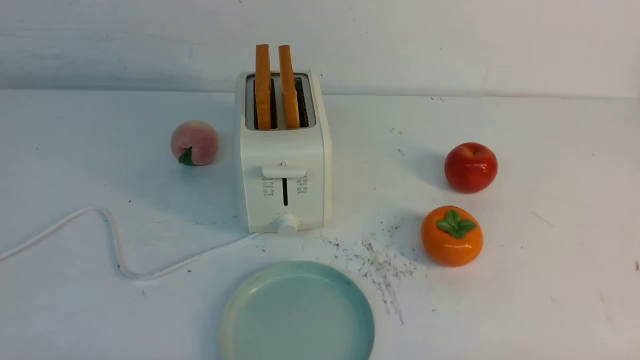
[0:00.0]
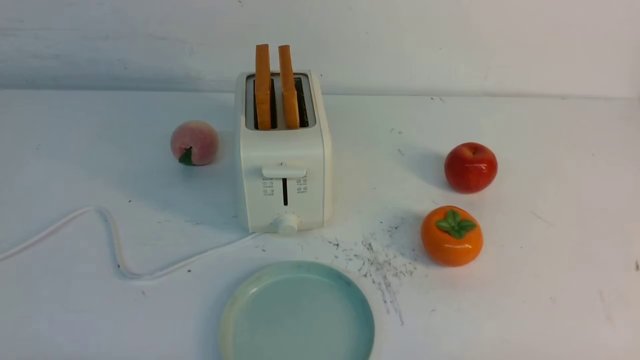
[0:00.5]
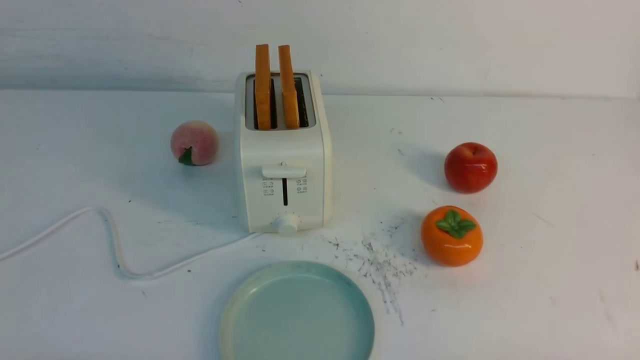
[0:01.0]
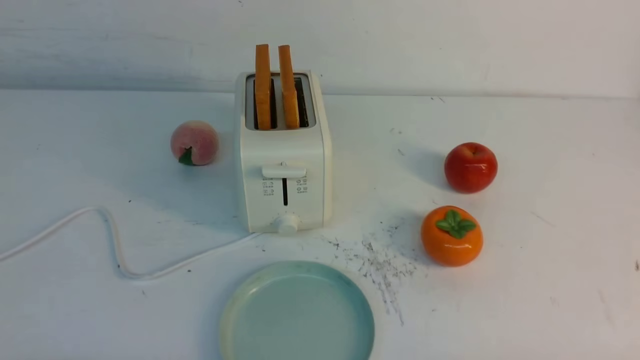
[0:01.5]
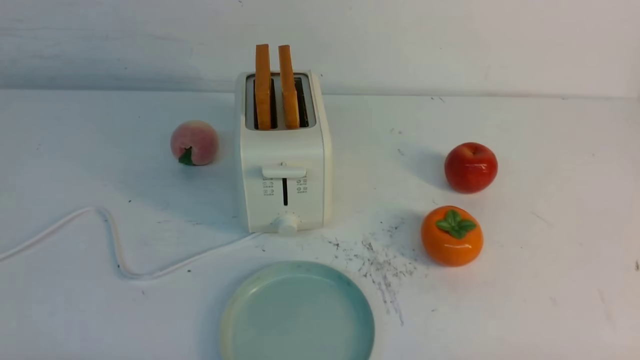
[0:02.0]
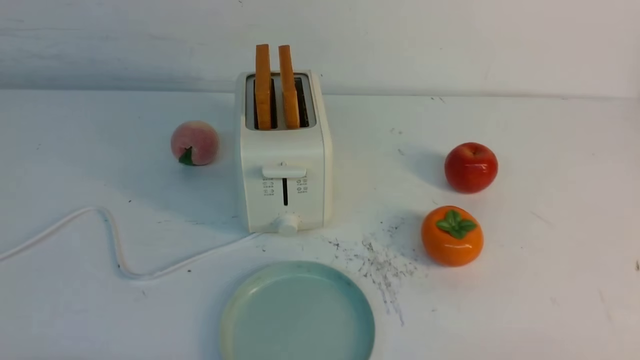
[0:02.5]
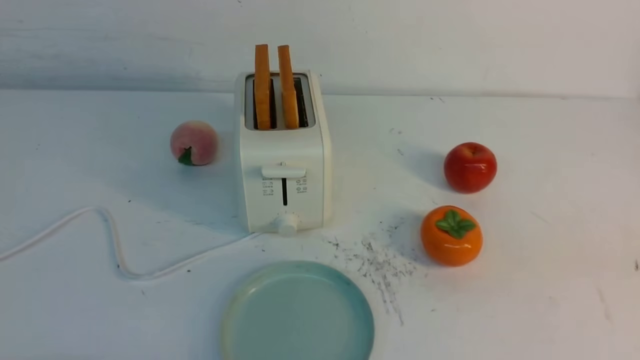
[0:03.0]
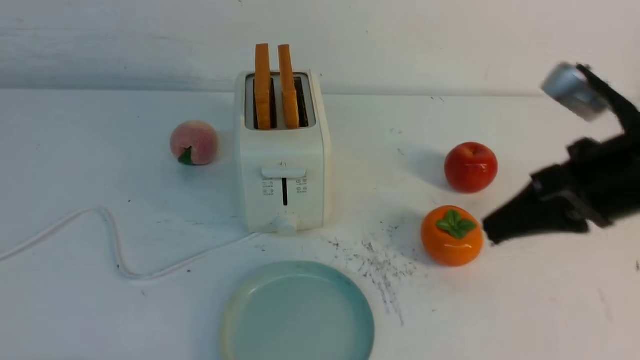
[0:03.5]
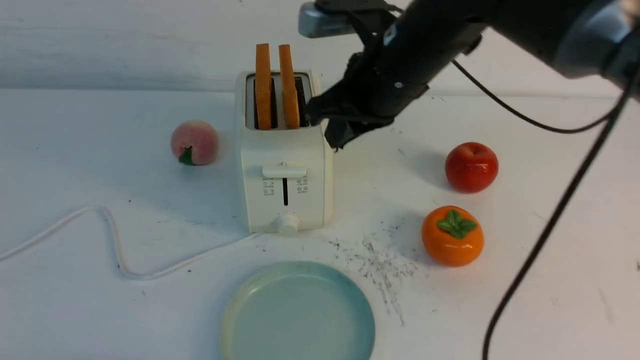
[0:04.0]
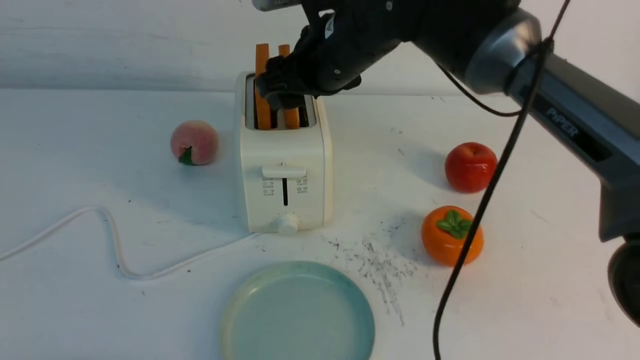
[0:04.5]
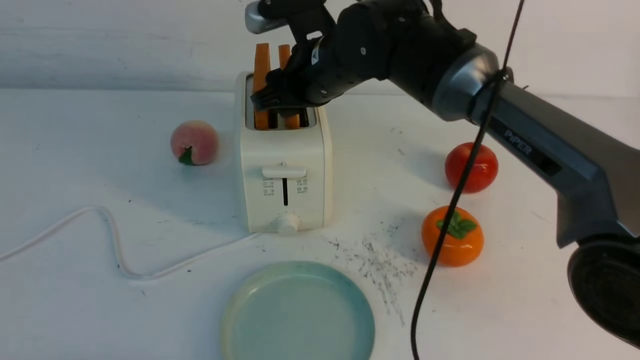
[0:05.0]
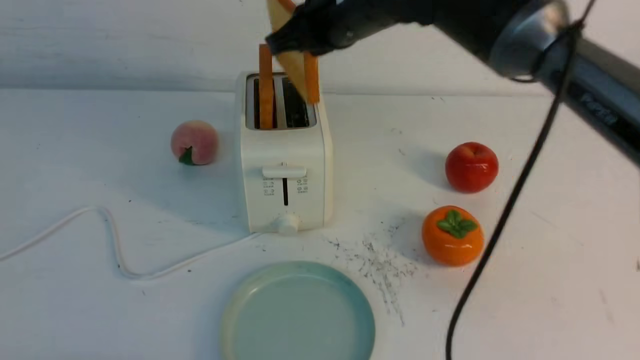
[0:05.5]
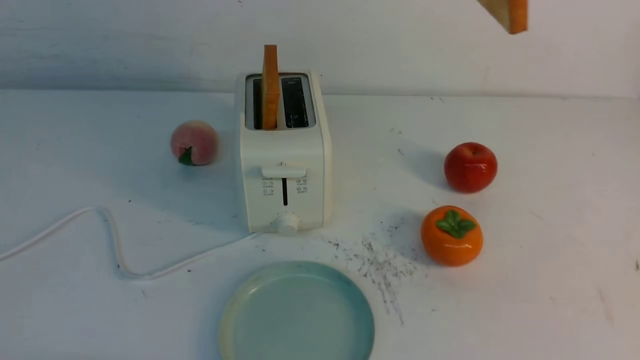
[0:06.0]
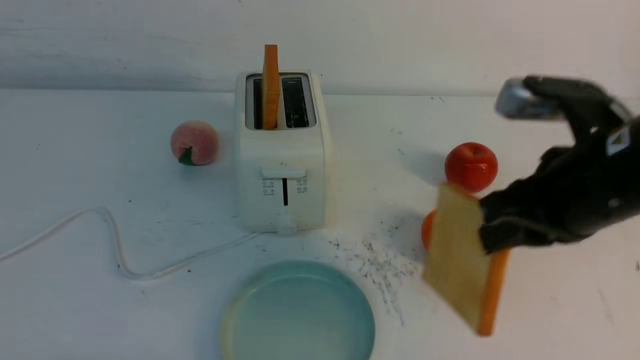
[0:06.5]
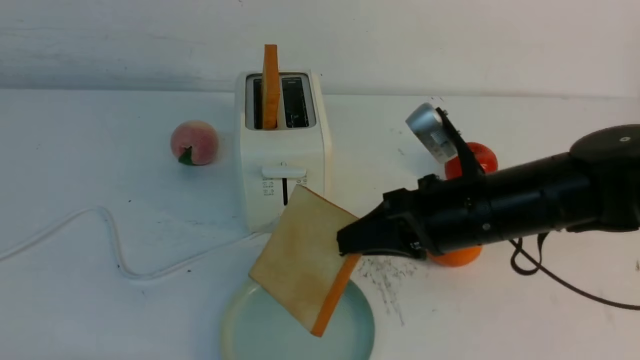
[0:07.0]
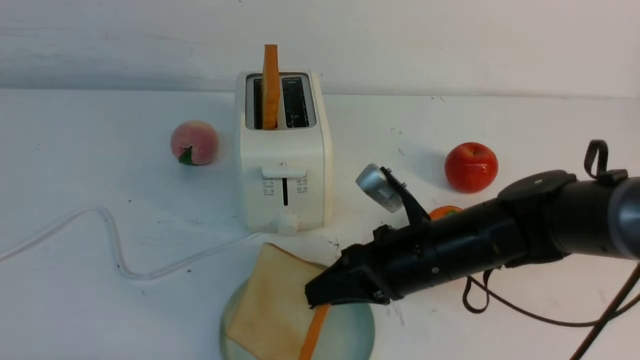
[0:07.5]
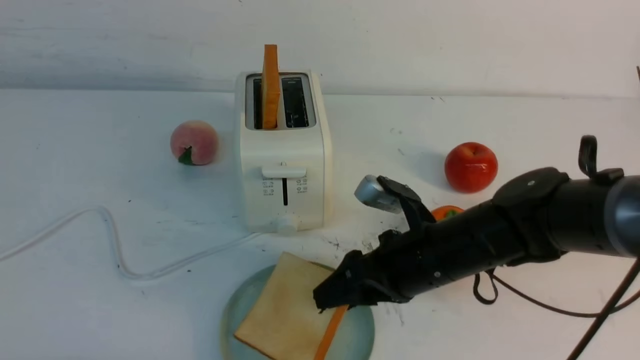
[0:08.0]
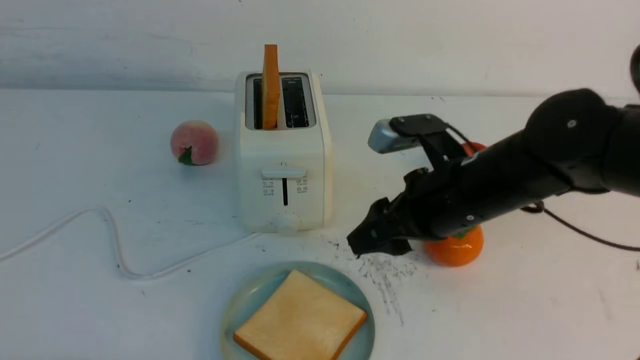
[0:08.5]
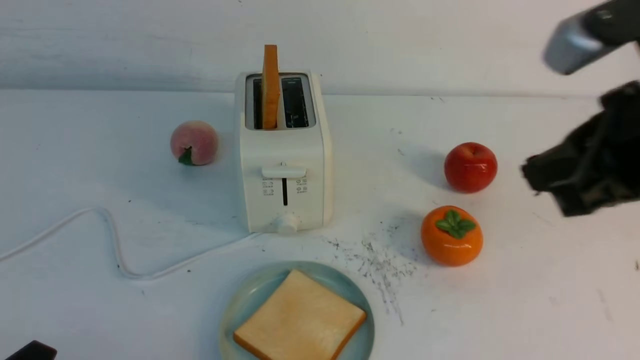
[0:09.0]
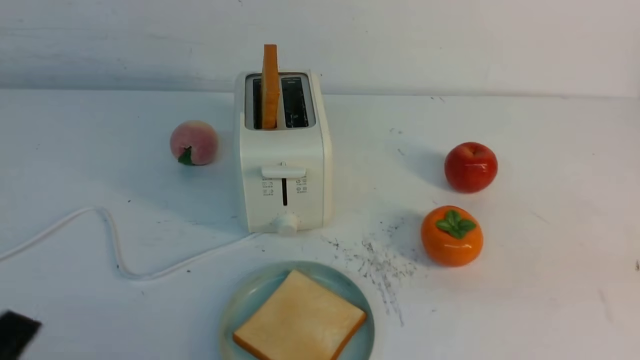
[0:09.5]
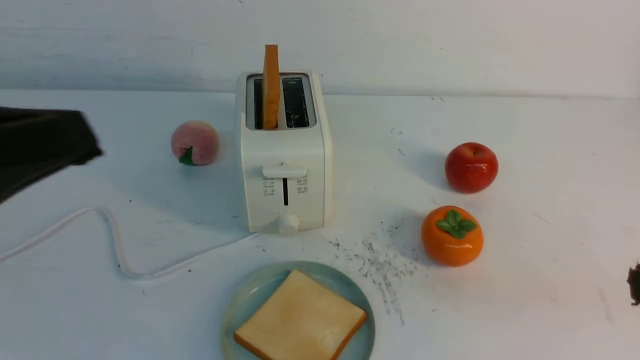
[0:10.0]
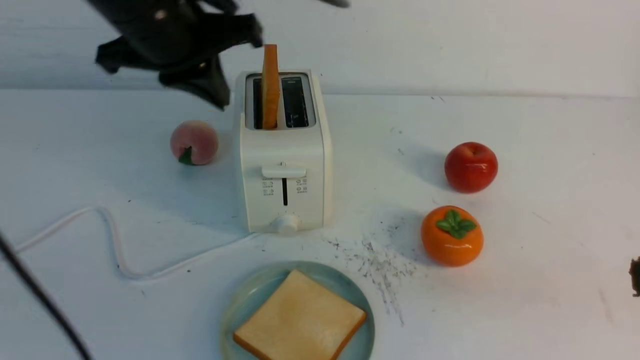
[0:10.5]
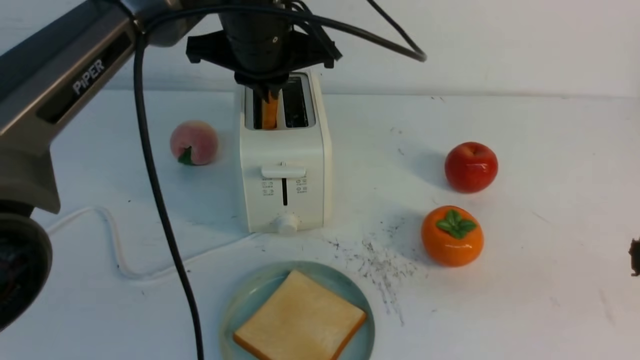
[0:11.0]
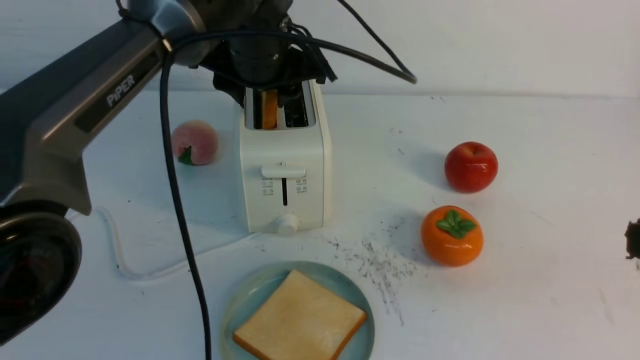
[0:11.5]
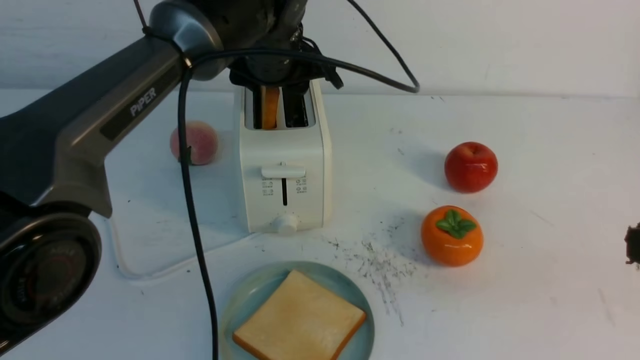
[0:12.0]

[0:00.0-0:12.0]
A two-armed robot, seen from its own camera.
Task of the whole recording: take toasted bread from bread machine on white table place on plate.
Step, 0:00.0 to 0:05.0: use the right arm to take out a slice of bread.
Step, 0:05.5 to 0:08.0: use the right arm to put a slice of bread into the plate.
0:02.0 to 0:04.0: The right gripper is displaced forward, to the left and upward by roughly 40 cm, and closes.
0:04.0 to 0:06.0: The right gripper travels upward by some 15 cm, and opens, then closes once more.
0:06.0 to 0:08.0: The right gripper goes about 30 cm downward, and opens.
0:08.0 to 0:10.0: The left gripper heads upward, covering approximately 25 cm, and closes up, while the right gripper moves backward, upward and to the right, approximately 30 cm, and closes.
0:10.0 to 0:12.0: The left gripper heads forward and to the right, covering about 40 cm, and opens its fingers.

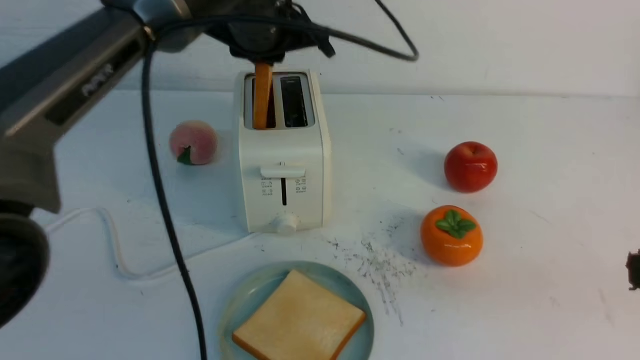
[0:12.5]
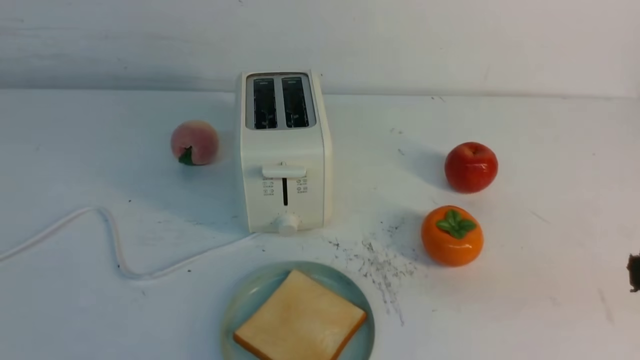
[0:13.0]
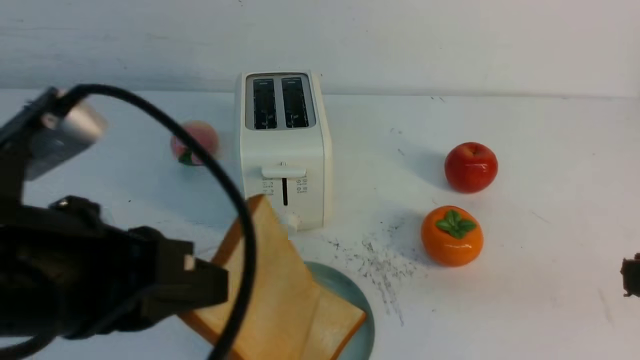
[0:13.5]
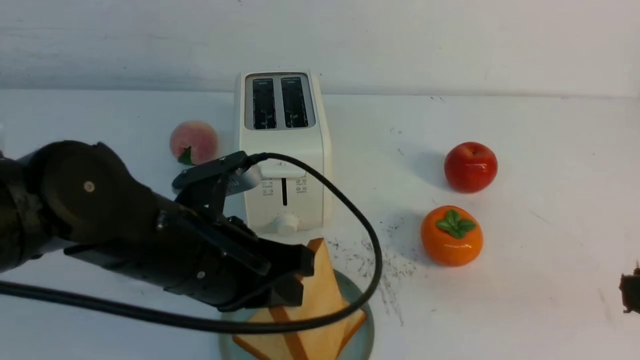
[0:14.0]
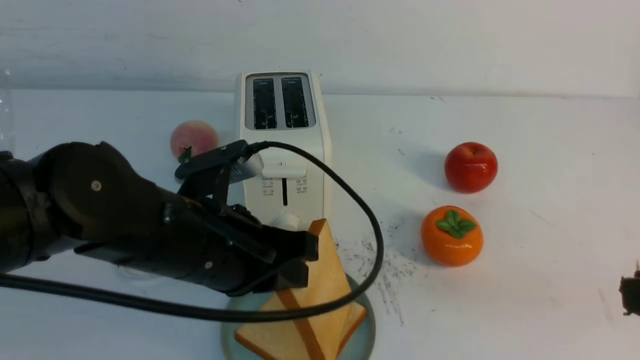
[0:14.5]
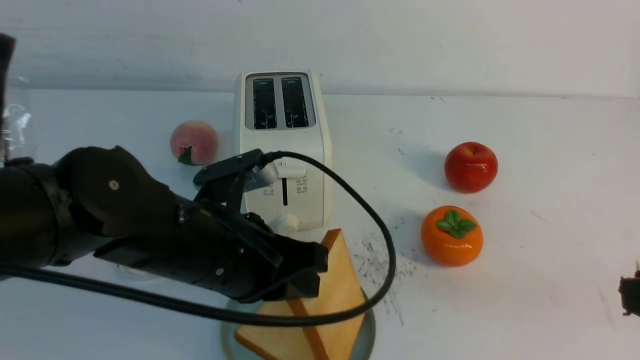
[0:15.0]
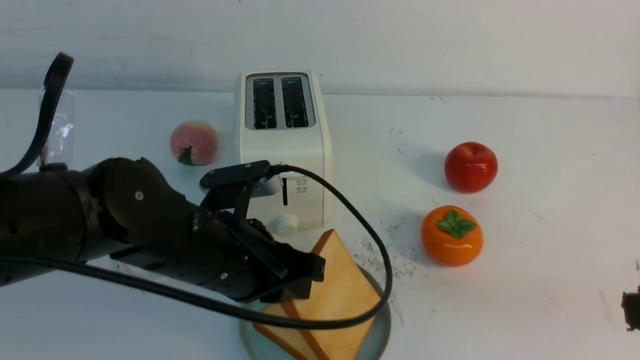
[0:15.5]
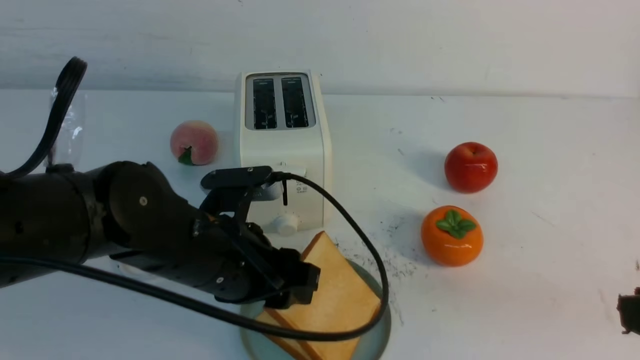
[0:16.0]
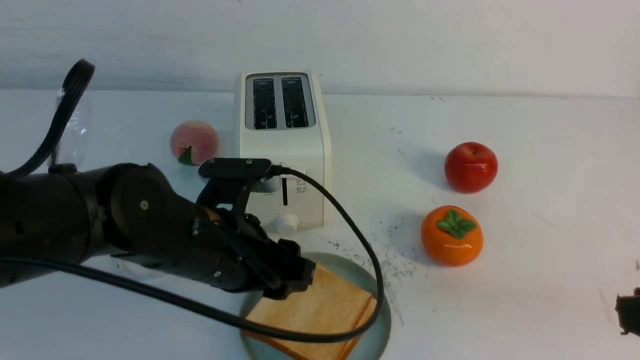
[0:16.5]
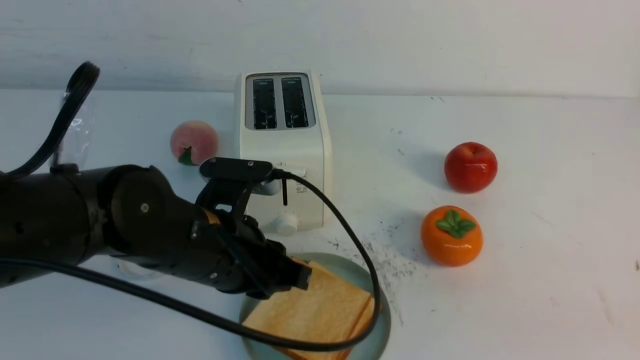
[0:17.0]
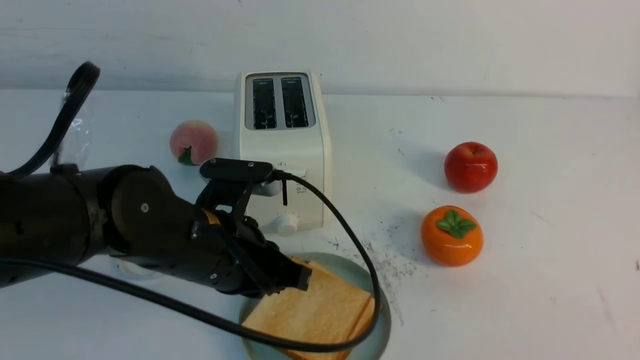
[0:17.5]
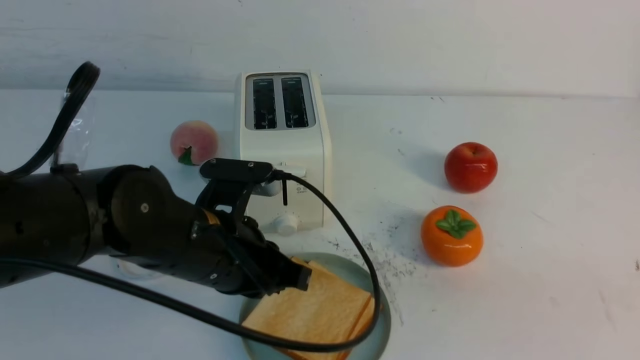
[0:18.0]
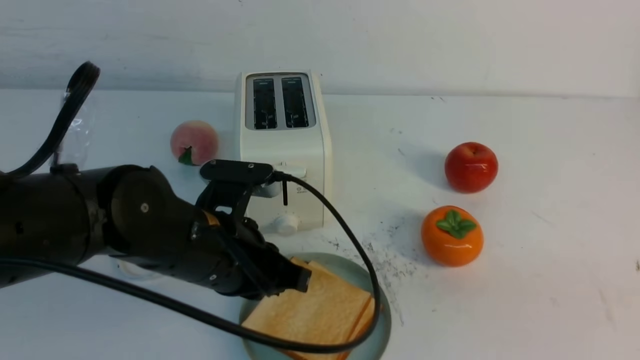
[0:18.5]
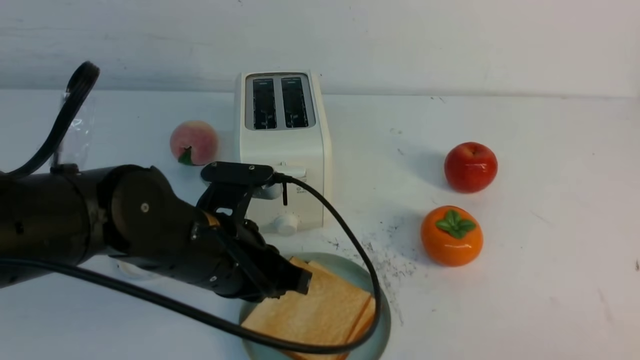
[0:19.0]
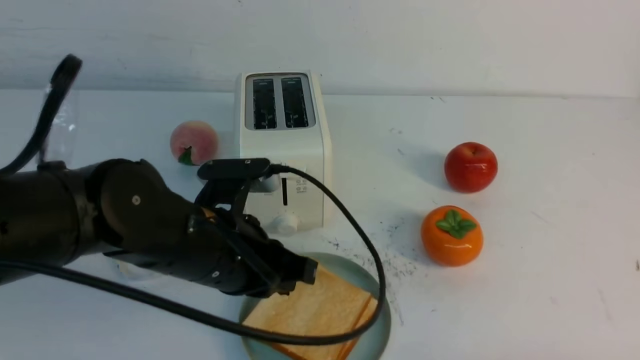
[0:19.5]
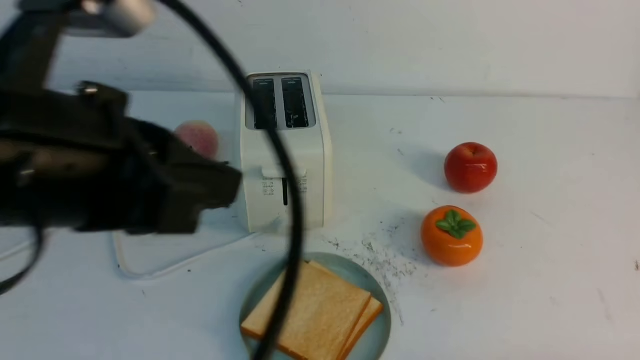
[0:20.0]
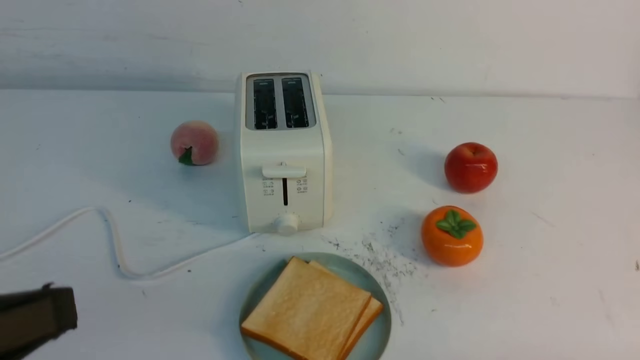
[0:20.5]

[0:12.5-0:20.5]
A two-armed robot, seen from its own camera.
Task of the whole recording: take toasted bread from bread machine on white table place on plate.
Step, 0:13.0 to 0:16.5: use the left arm to put a slice of bread into the empty plate.
0:12.5 to 0:14.5: The left gripper travels backward and downward by about 20 cm.
0:14.5 to 0:16.5: The left gripper opens.
0:16.5 to 0:18.5: The left gripper closes its fingers; the right gripper shifts by about 5 cm.
0:18.5 to 0:20.5: The left gripper goes approximately 25 cm backward, upward and to the left; the right gripper shifts approximately 15 cm downward.
